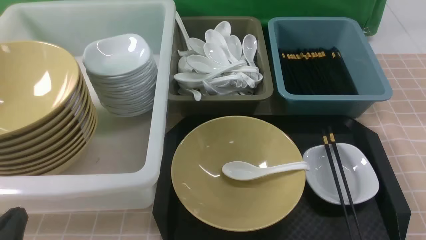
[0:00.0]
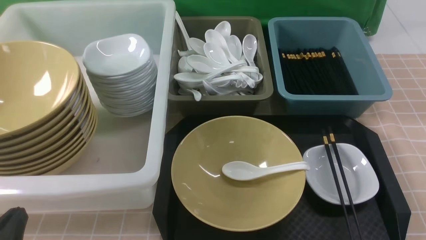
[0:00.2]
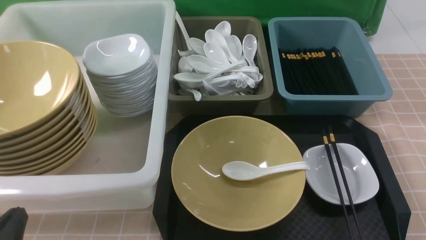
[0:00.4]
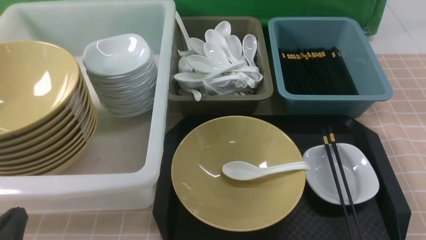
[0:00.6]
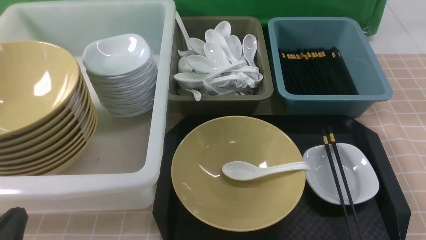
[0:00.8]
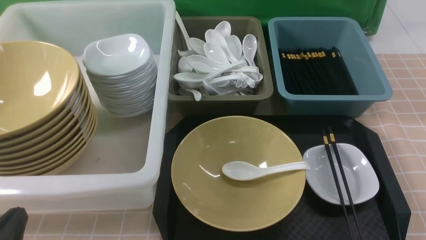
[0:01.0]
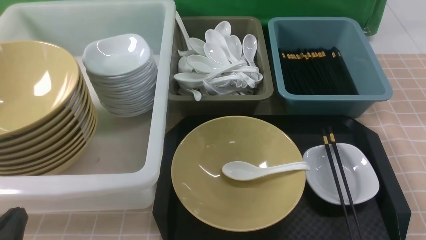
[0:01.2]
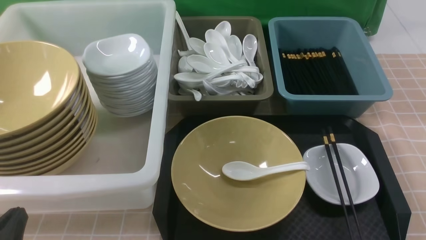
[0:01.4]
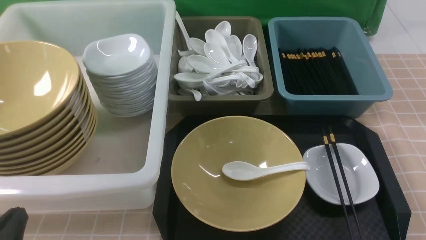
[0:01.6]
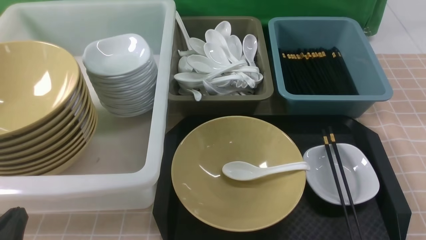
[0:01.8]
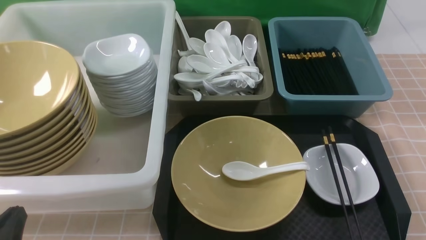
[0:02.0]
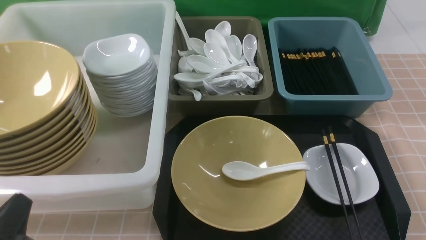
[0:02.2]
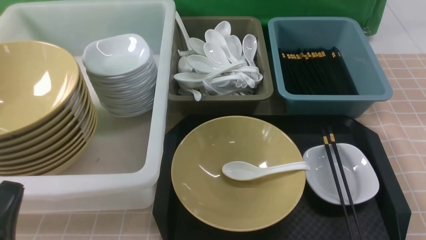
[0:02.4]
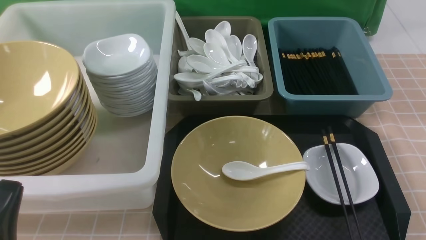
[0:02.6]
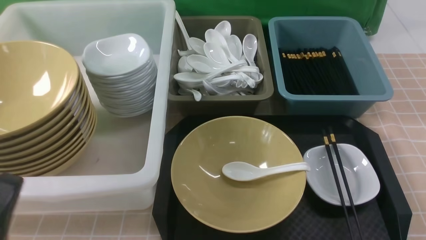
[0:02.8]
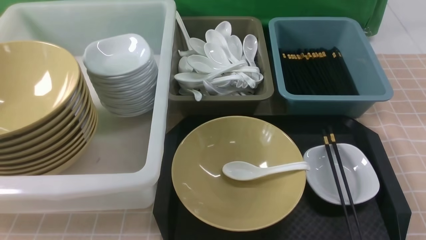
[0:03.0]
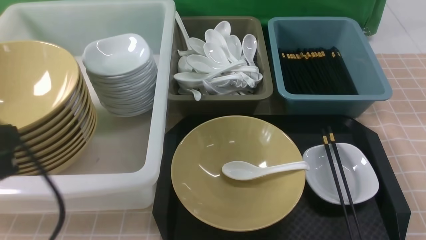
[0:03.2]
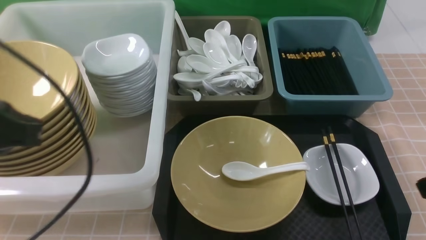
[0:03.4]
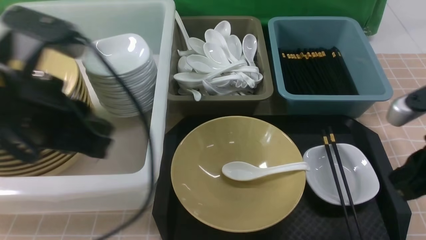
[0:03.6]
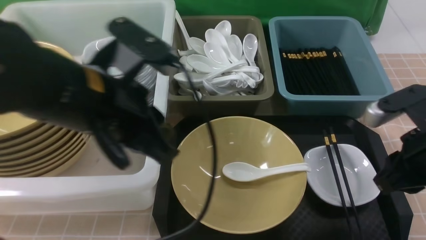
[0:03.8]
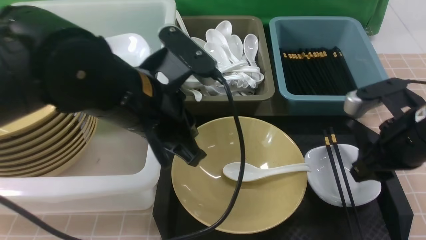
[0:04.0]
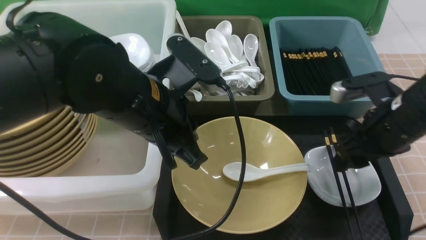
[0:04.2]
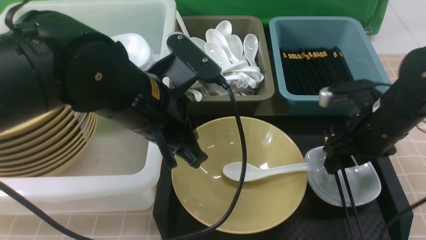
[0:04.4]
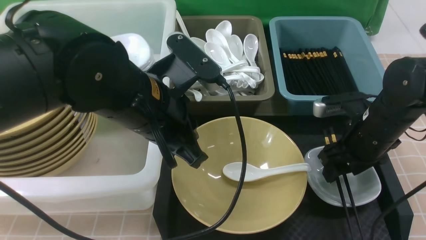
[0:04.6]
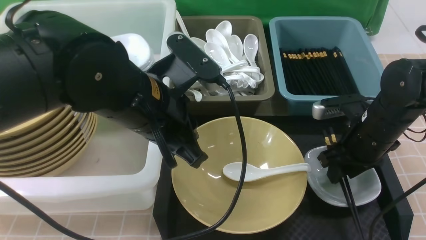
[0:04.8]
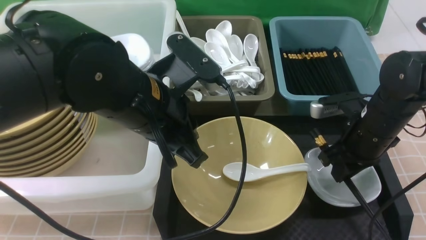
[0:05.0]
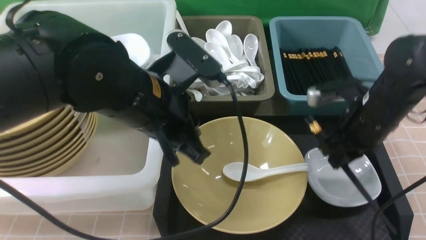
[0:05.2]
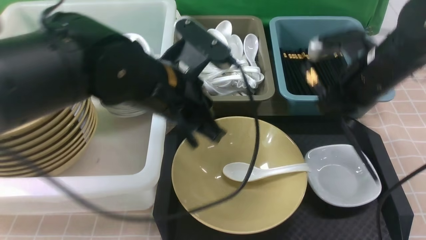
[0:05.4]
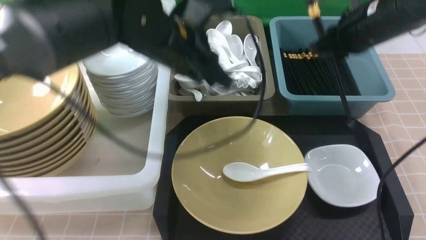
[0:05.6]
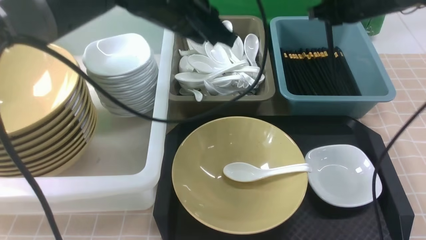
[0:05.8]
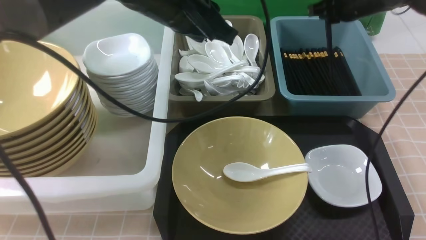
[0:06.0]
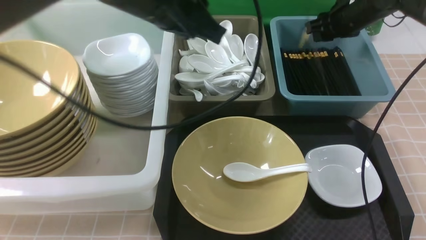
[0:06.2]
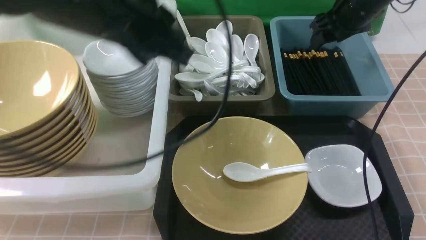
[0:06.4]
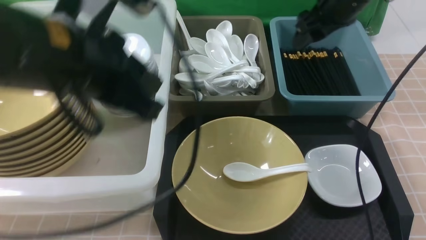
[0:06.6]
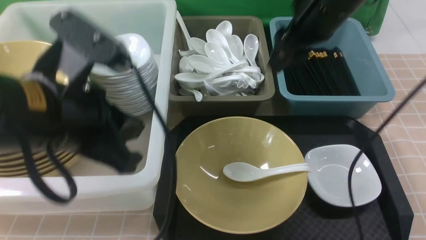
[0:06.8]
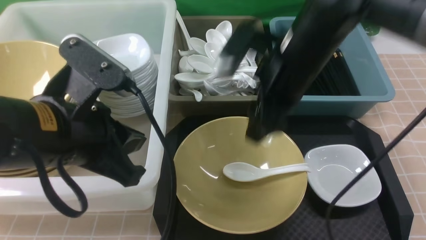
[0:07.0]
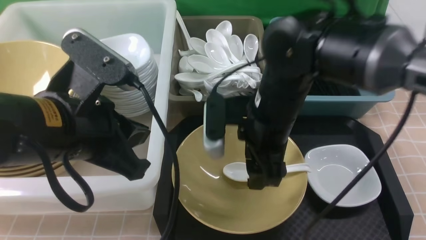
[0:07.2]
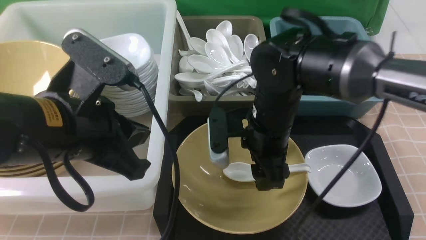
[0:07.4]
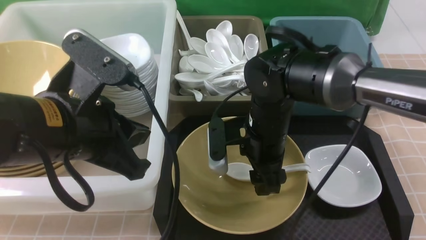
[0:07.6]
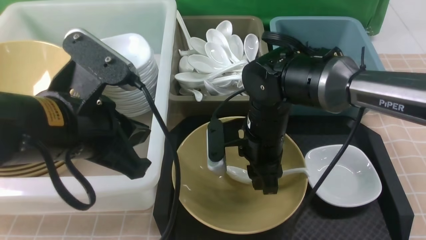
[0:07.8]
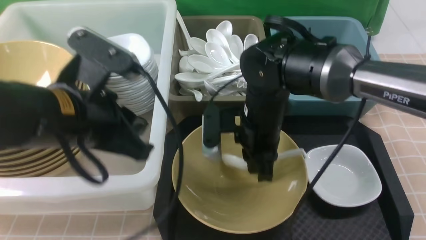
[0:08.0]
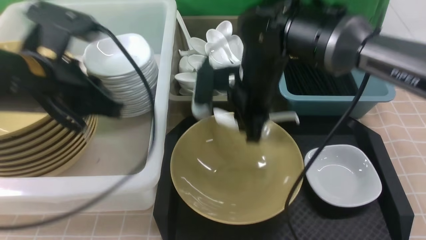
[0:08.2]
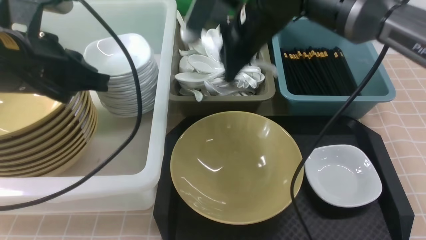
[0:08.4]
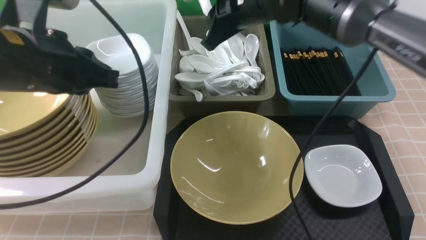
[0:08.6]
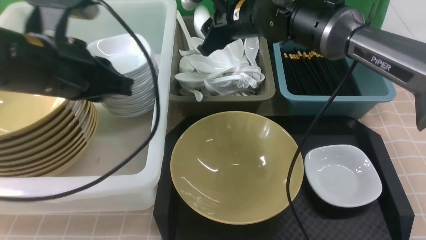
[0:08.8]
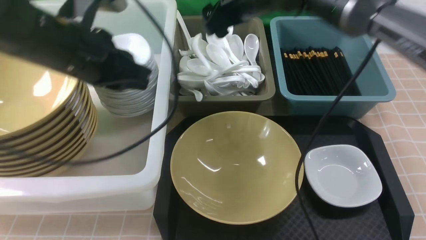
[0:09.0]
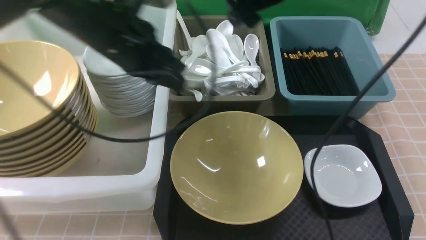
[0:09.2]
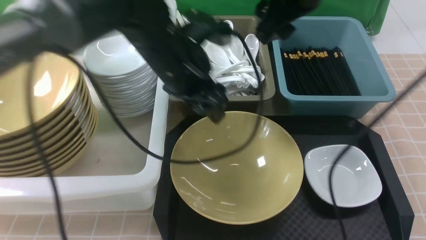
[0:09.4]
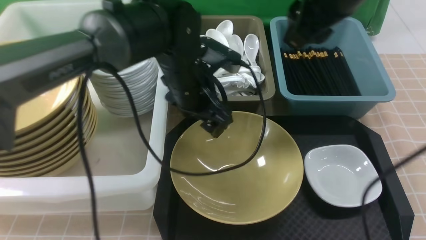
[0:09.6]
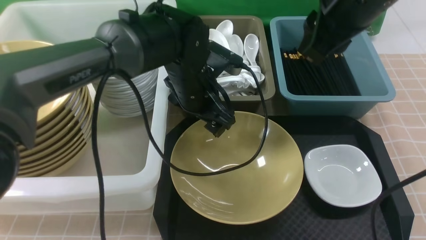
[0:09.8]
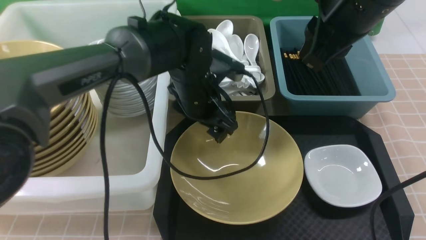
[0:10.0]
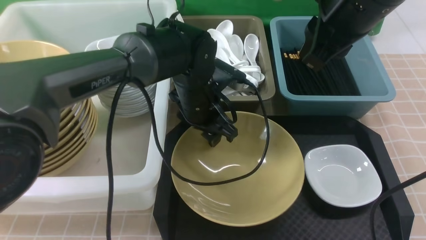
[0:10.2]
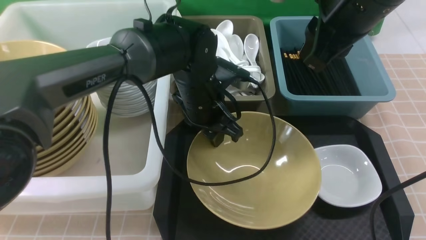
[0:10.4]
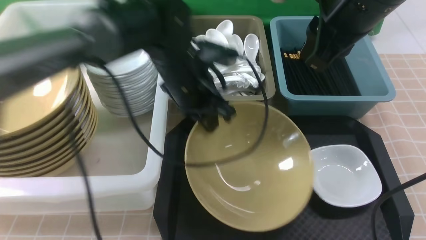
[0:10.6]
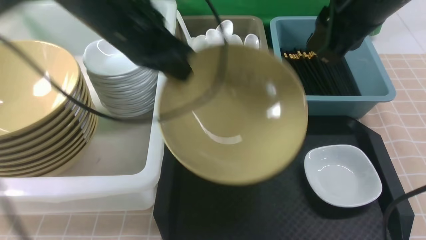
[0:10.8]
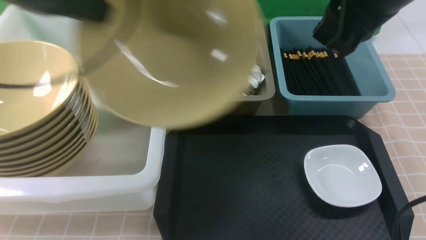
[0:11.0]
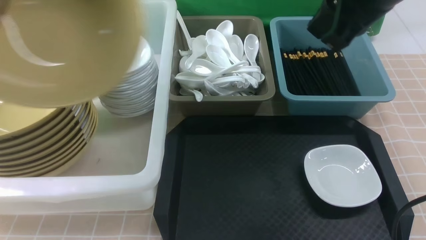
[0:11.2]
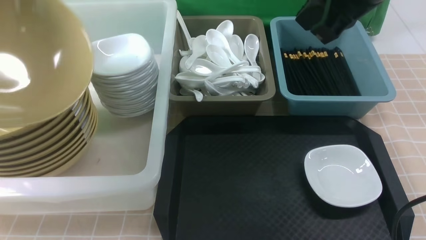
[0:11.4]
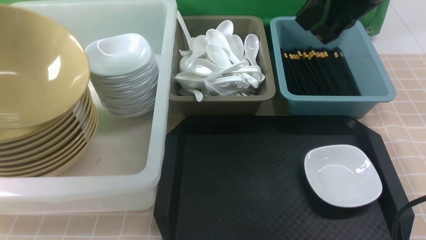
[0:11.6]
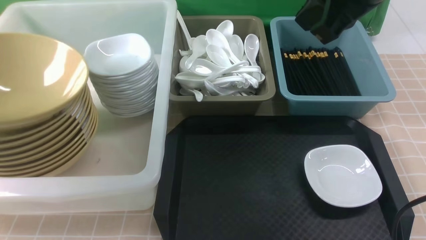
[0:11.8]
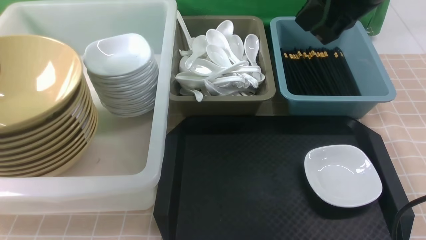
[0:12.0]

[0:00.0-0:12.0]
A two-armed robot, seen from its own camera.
Task of the whole recording: on brown table put chopsticks spoon bowls plates into blue grey white boxes.
Step, 0:00.0 to 0:05.4: use the right arm to grab the chopsticks.
Step, 0:05.6 to 0:06.4: use the right arm to put the chopsticks into the small storage box on the right.
Step, 0:06.6 to 0:08.0: use the right arm to grab the soup spoon in the middle.
Step, 0:08.2 to 0:09.0: use the right arm to put the soup spoon into the small storage box in the middle.
Step, 0:09.2 to 0:10.6: use the left arm to grab the yellow noodle bowl on the left.
0:00.0 to 0:01.6: Both grippers stay put.
0:01.6 to 0:03.0: The left gripper is displaced upward by approximately 15 cm.
0:03.0 to 0:04.4: The left gripper is displaced forward and to the right by some 25 cm. Meanwhile the right gripper shifts about 25 cm forward, and opens up.
0:04.4 to 0:06.0: The left gripper moves forward and upward, some 10 cm, while the right gripper is displaced forward and upward by roughly 20 cm, and closes its fingers.
0:06.0 to 0:07.6: The left gripper is displaced backward and to the left by approximately 15 cm; the right gripper shifts about 25 cm to the left, backward and downward, and opens up.
0:07.6 to 0:09.0: The right gripper goes about 20 cm upward and forward, and closes, then reopens. The left gripper moves forward, about 10 cm.
0:09.0 to 0:10.4: The left gripper travels to the right, downward and forward by approximately 15 cm, and opens, then closes once more, while the right gripper heads backward, to the right and upward, covering some 15 cm, and closes its fingers.
0:10.4 to 0:12.0: The left gripper goes about 35 cm to the left and upward, and opens its fingers.

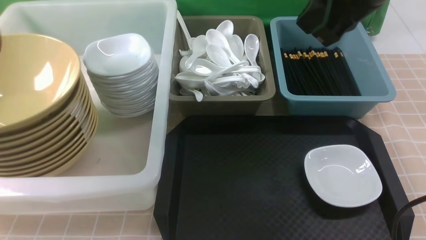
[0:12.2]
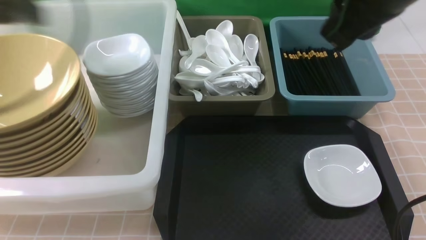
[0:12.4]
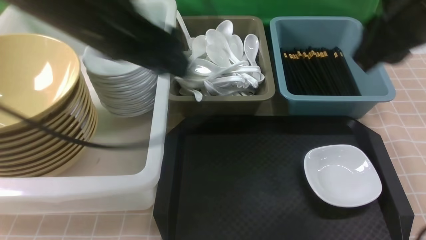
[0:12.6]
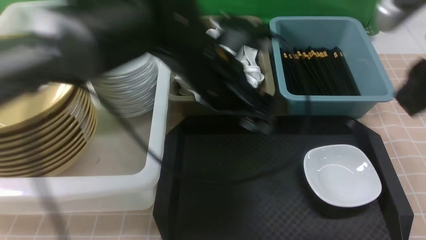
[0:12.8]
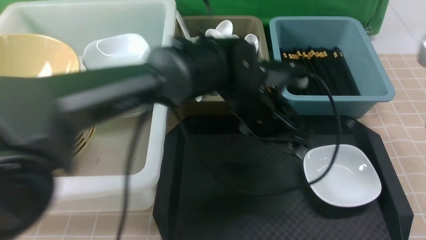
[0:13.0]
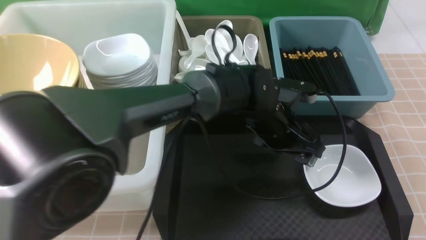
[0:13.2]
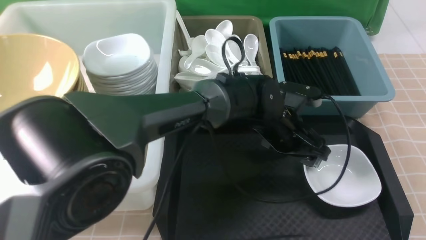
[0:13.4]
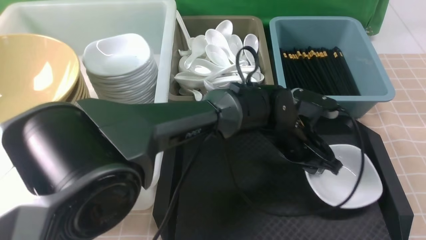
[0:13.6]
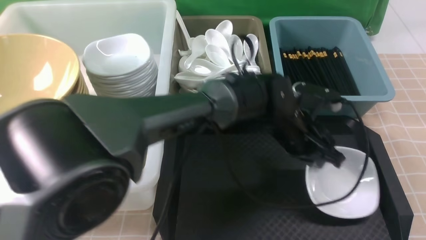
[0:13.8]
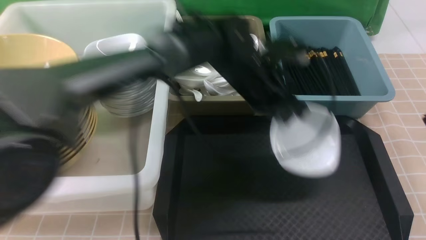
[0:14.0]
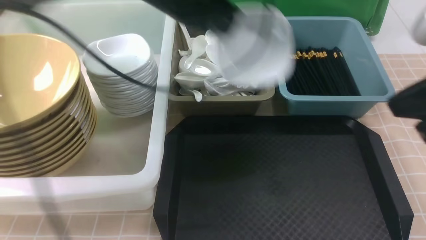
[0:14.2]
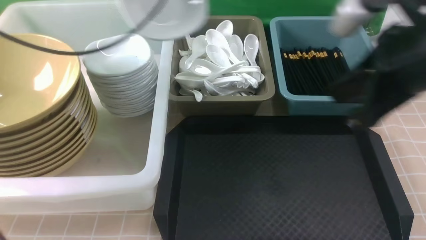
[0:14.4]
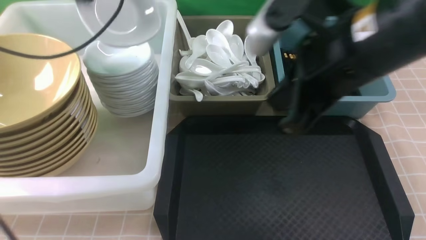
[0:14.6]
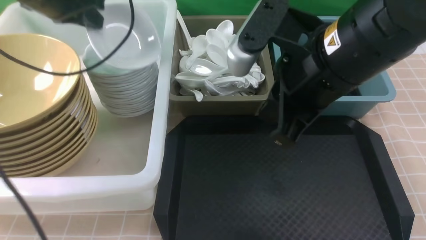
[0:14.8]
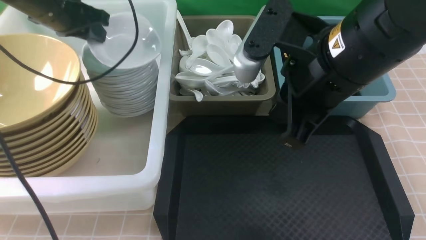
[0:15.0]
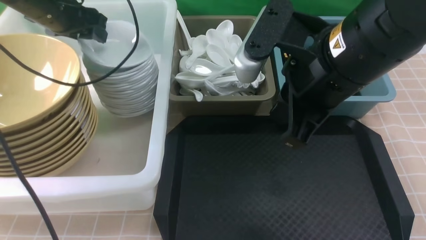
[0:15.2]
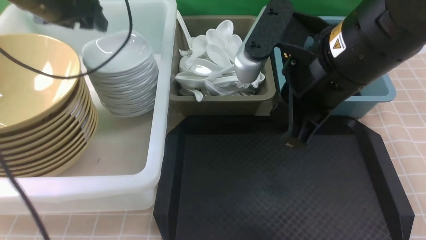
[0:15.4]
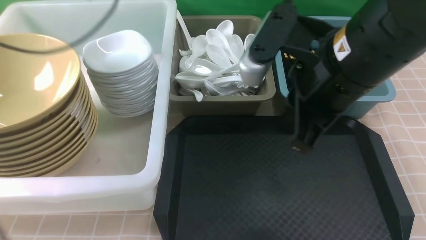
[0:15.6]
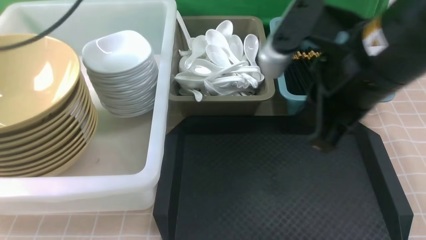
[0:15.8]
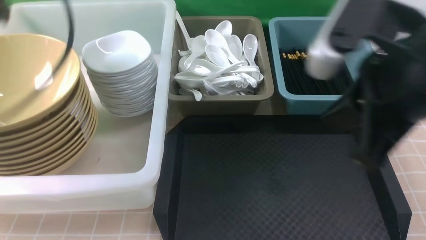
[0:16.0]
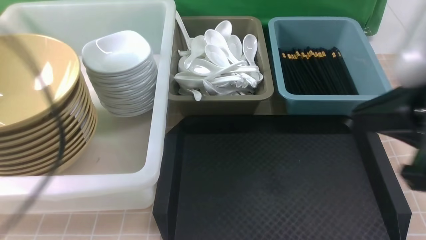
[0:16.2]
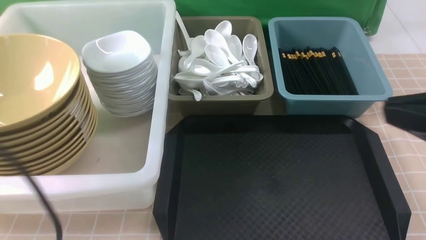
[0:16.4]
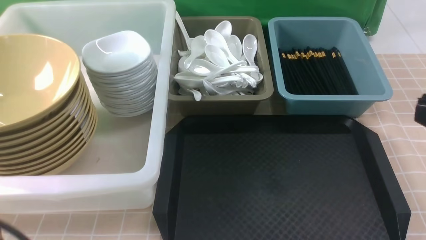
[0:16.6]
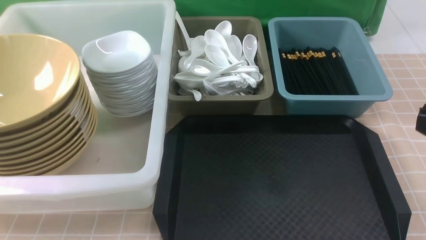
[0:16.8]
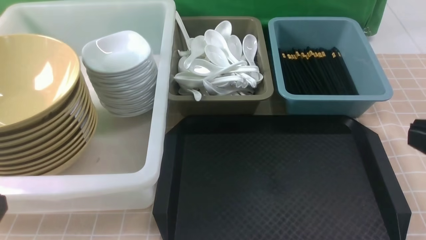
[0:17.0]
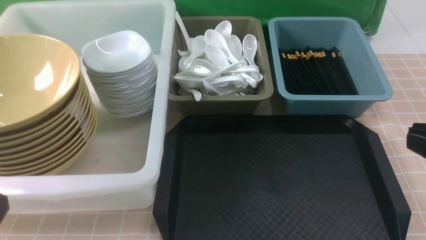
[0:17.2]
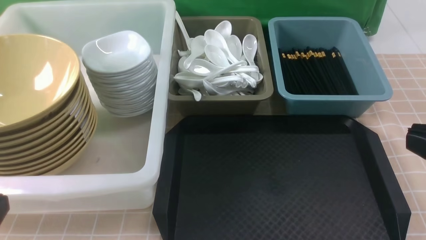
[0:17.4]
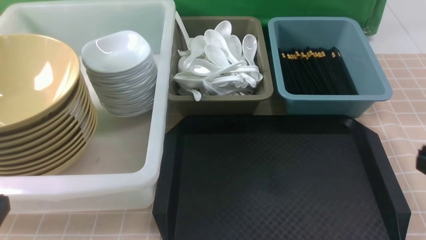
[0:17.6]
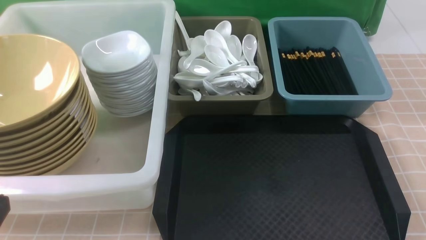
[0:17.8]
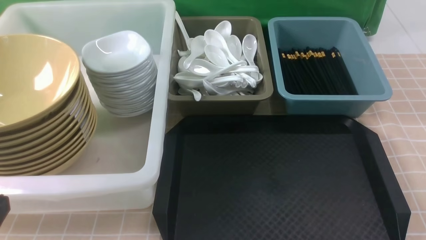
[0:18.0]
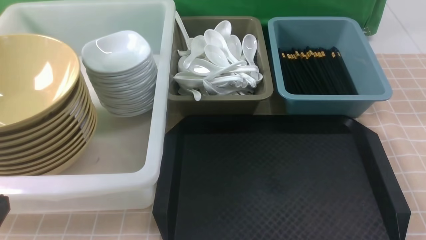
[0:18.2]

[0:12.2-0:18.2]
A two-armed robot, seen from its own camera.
Task of the whole recording: on brown table put chopsticks spoon bowls plates into blue grey white boxes.
Step, 0:12.4 to 0:14.0: use the left arm to grab the plate.
Step, 0:14.2 to 0:15.6: use the left arm to put the plate into the large storage box on the left.
0:12.2 to 0:13.8: The left gripper shifts some 40 cm to the right and downward, and closes its fingers. The right gripper travels backward, to the right and downward by roughly 15 cm.
0:13.8 to 0:15.2: The right gripper is displaced to the left and forward by about 15 cm, and closes its fingers, while the left gripper shifts roughly 35 cm to the left, and opens its fingers.
0:15.2 to 0:16.6: The right gripper is displaced backward and to the right by roughly 20 cm. Meanwhile the left gripper shifts about 40 cm backward, and closes its fingers.
